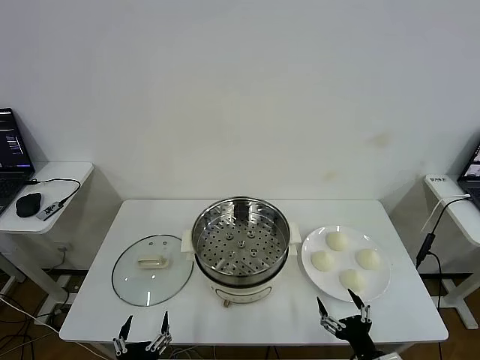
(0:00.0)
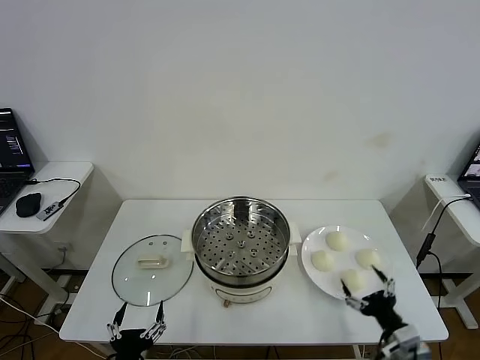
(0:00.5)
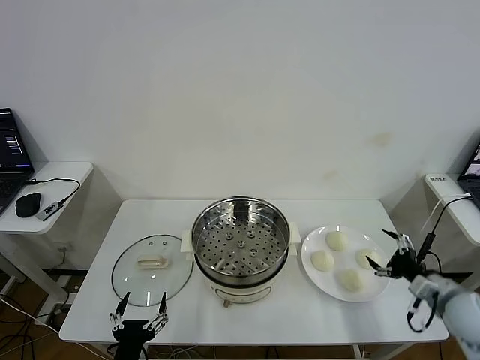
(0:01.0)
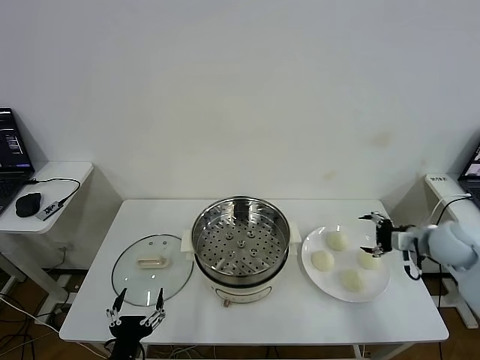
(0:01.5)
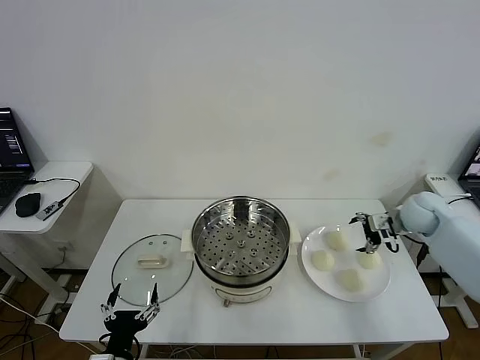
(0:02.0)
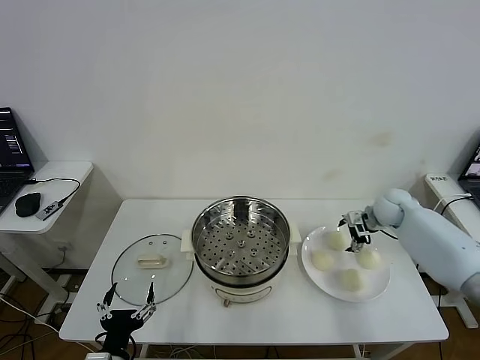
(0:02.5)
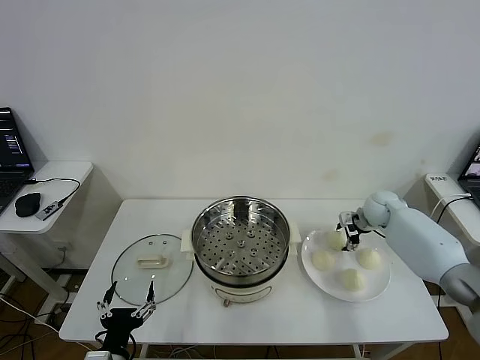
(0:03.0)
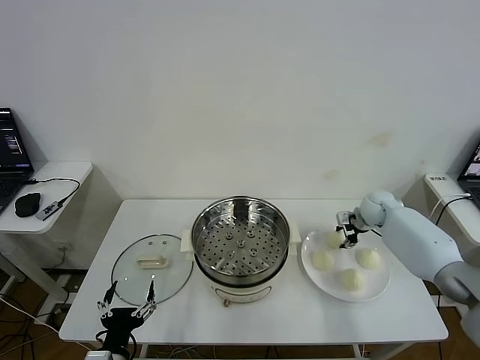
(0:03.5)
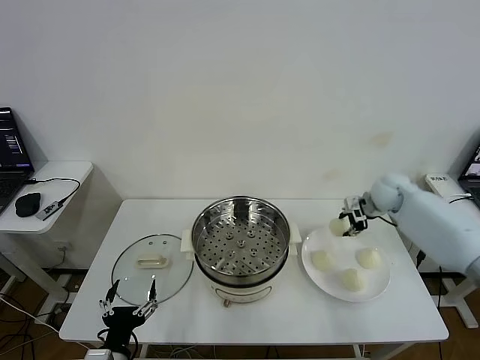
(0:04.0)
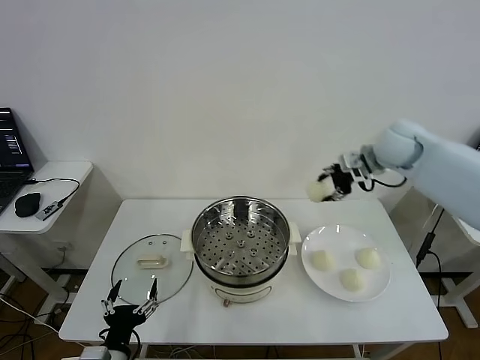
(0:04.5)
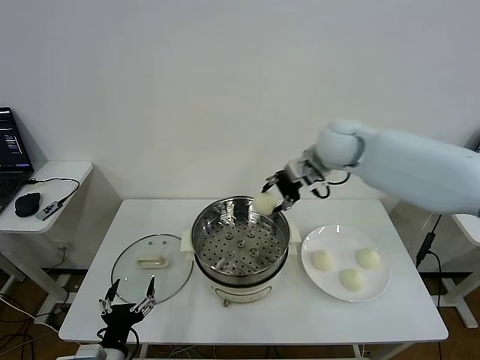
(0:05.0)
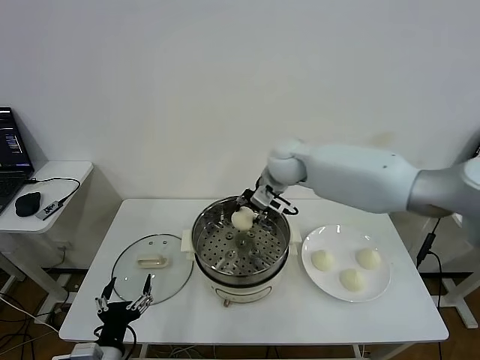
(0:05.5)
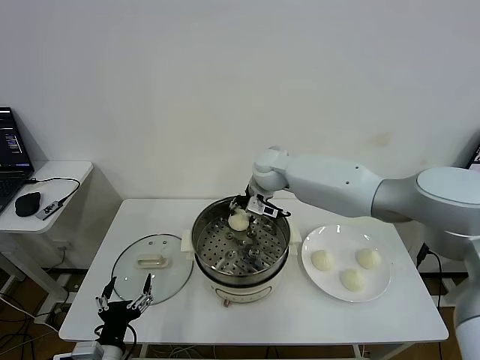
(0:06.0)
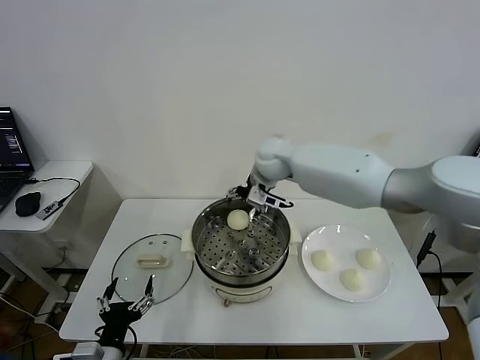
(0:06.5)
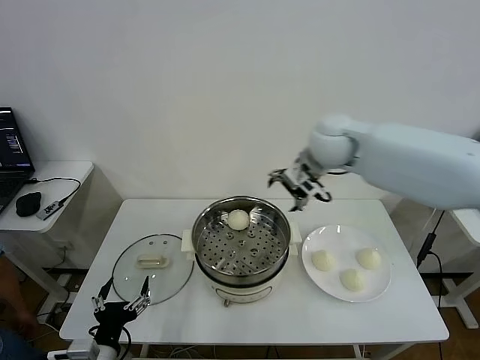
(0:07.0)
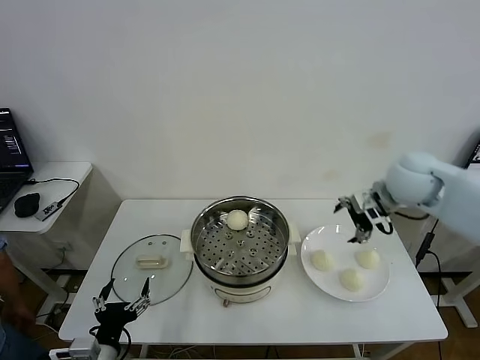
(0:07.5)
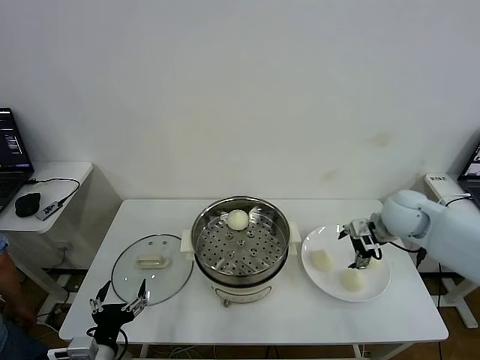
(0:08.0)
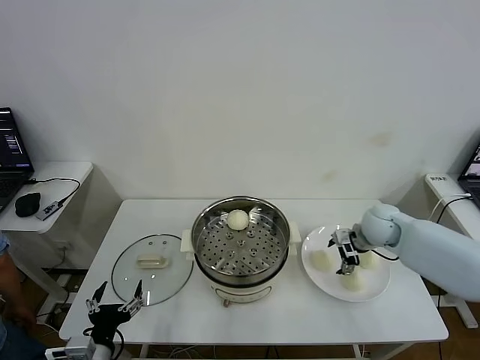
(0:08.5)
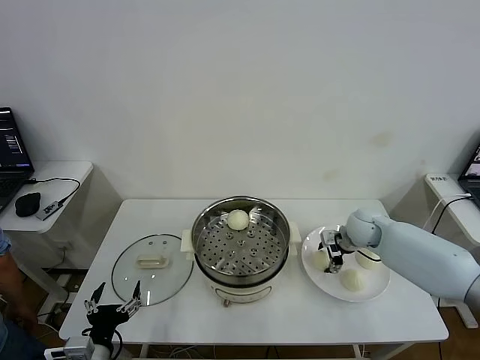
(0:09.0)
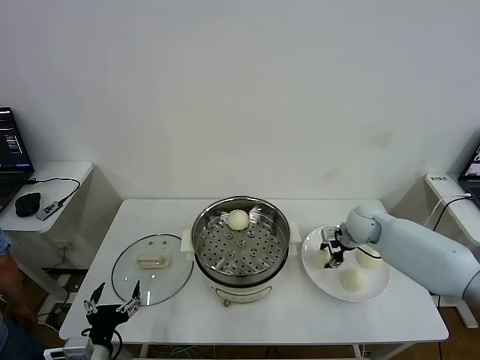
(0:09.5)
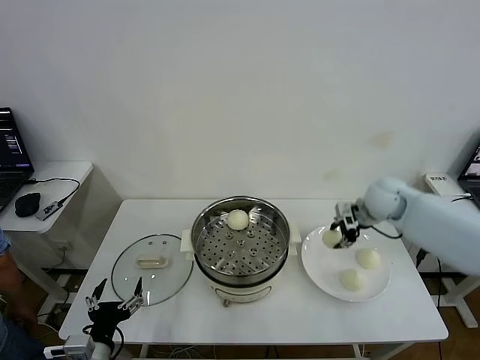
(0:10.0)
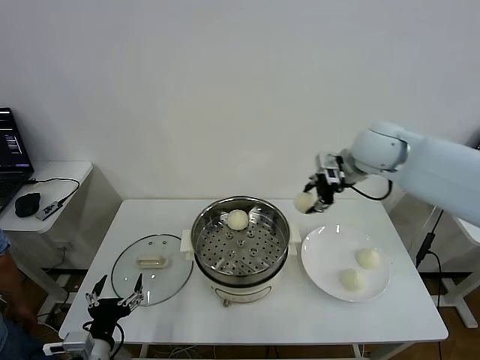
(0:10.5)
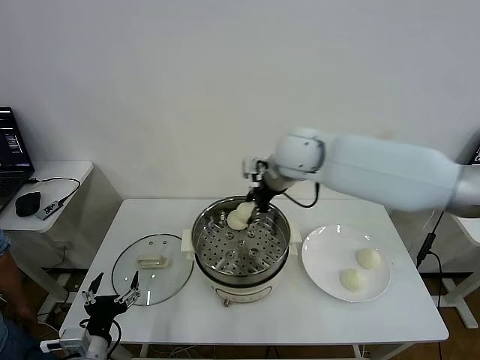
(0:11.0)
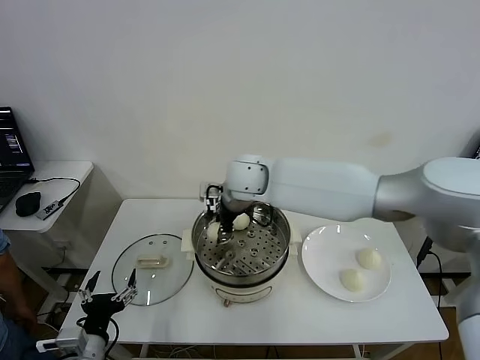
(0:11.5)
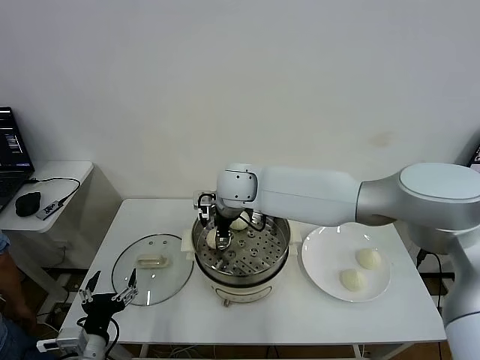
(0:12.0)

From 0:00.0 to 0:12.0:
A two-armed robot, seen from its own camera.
Task of the whole recording: take steamed baozi put them in steamer then cover it.
Step, from 0:00.0 to 0:03.5: Grasp the baozi in the plate with right gripper.
Step, from 0:04.0 to 0:06.0: Place the baozi on the steamer with right gripper.
Step, from 0:06.5 to 0:09.5: Grasp the baozi in the plate with right gripper.
From 0:02.0 to 0:04.0: The right gripper heads forward, covering about 5 cm, reaches about 5 cm downward, then returns, and closes up.
From 0:04.0 to 0:06.0: The right gripper is displaced to the left by about 30 cm.
From 0:06.0 to 0:08.0: The right gripper shifts about 30 cm to the right and backward, and opens up.
From 0:08.0 to 0:10.0: The right gripper shifts approximately 5 cm forward, moves about 10 cm downward and comes back, and closes its fingers.
From 0:10.0 to 0:12.0: The right gripper moves to the left, about 35 cm, and opens its fingers.

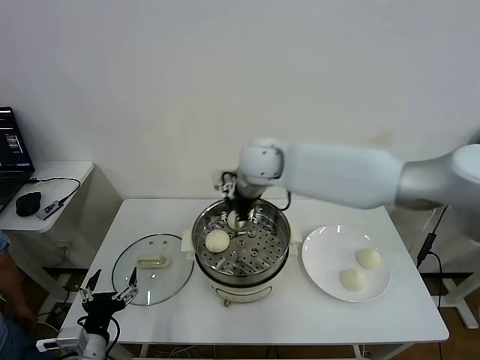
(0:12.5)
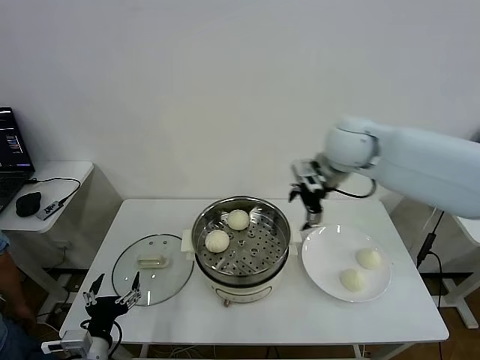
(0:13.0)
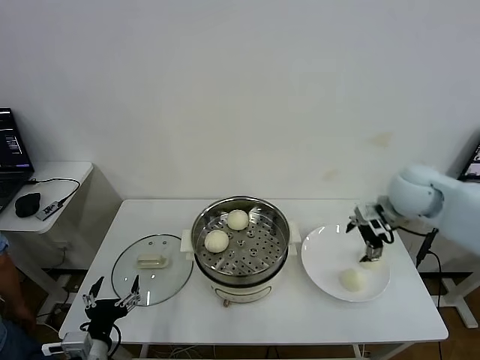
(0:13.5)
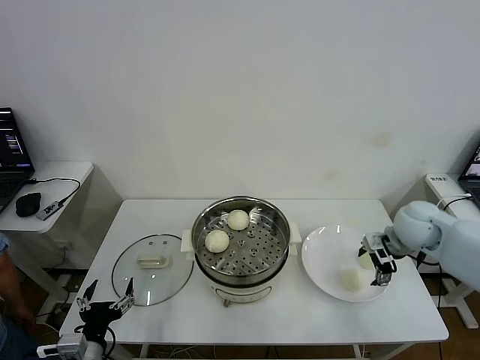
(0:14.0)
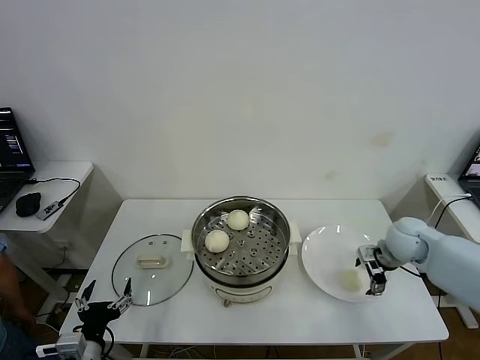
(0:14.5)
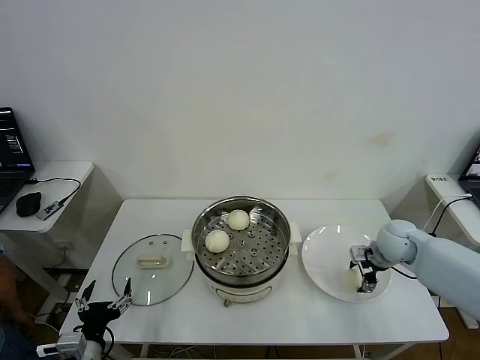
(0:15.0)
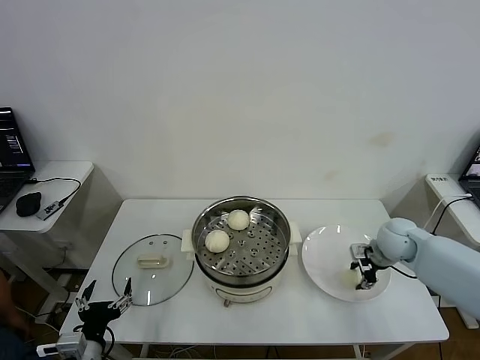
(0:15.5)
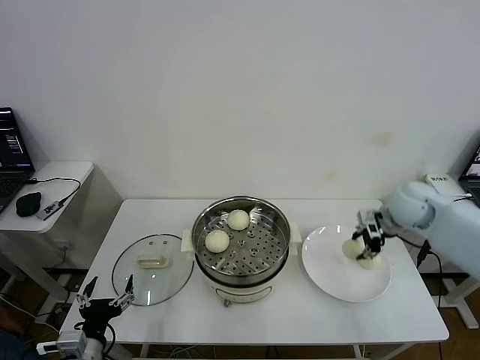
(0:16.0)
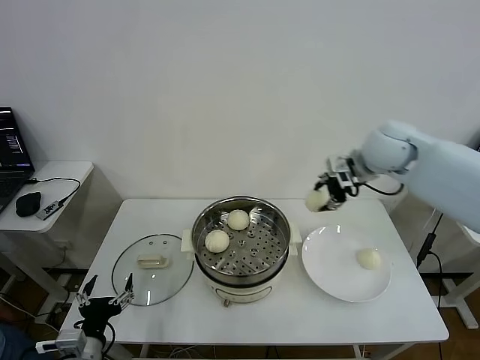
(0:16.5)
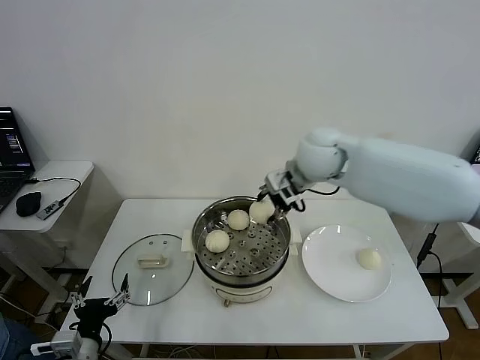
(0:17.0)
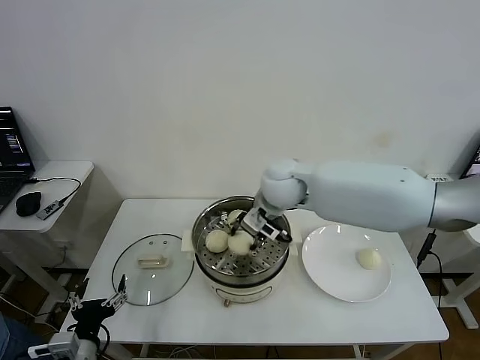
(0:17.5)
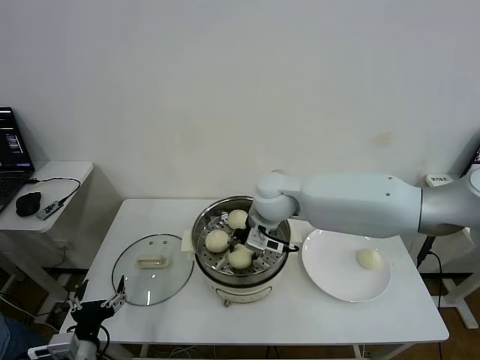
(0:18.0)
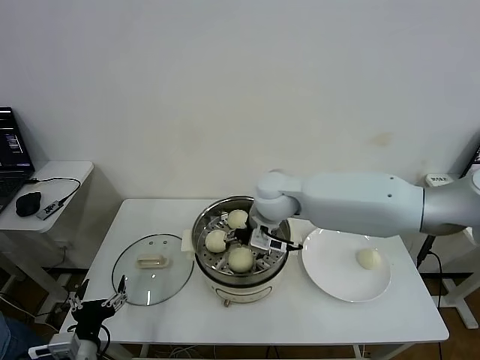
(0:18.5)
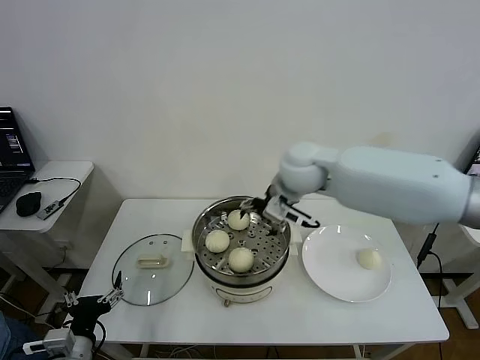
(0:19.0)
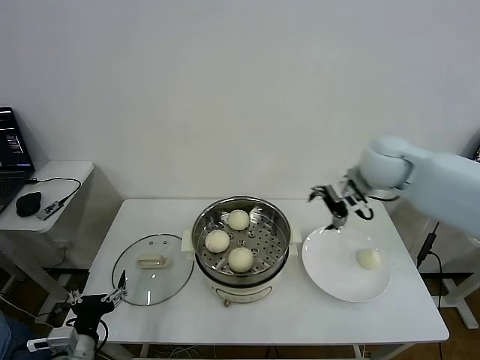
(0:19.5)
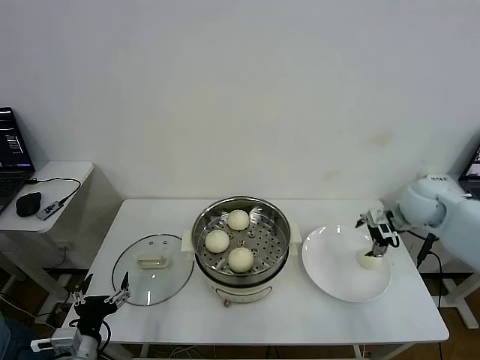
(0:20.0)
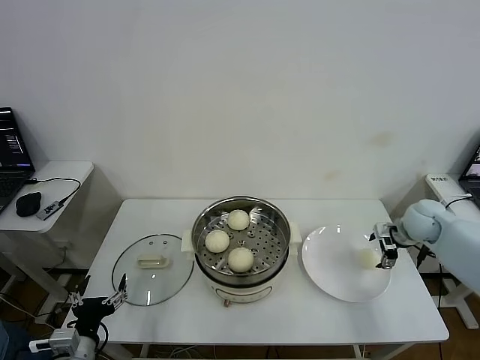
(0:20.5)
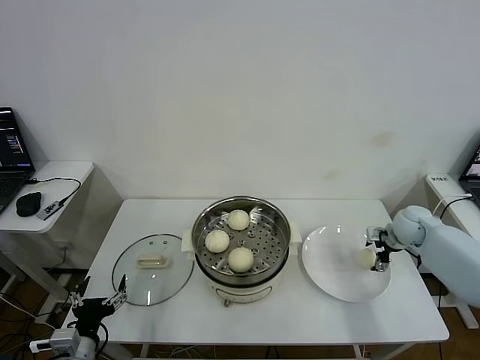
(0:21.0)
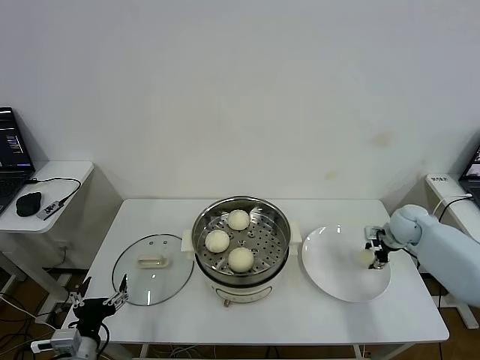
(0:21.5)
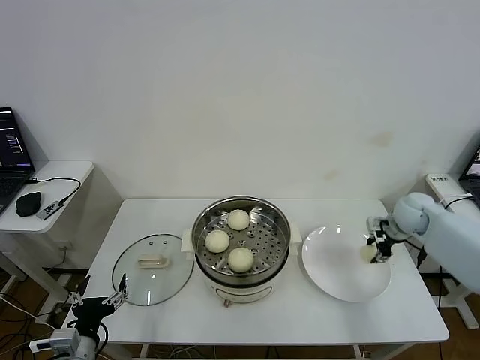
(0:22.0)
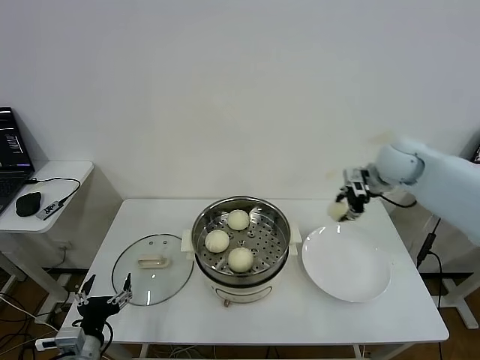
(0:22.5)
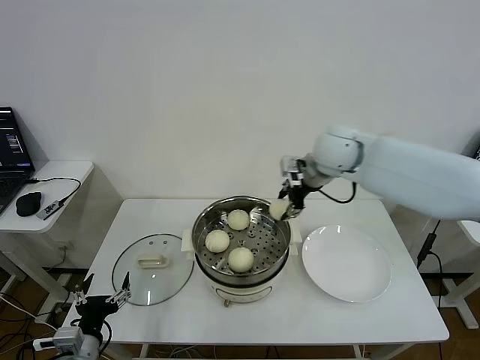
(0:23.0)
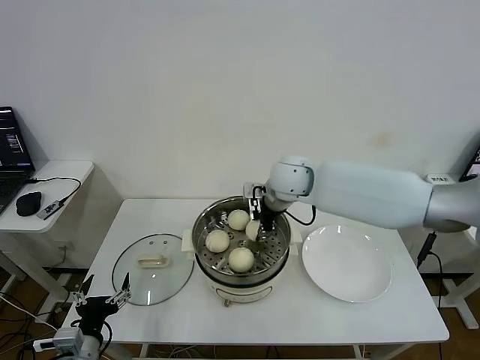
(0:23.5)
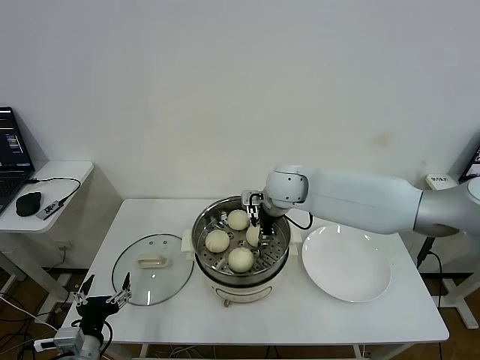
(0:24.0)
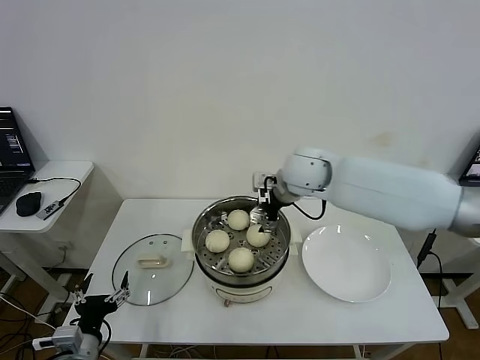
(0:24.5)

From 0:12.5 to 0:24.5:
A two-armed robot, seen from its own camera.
Task of the whole recording: take steamed baozi put them in steamer then cover it.
Step, from 0:12.5 to 0:15.0: Grasp the baozi in the plate with right gripper.
Step, from 0:16.0 to 0:18.5: Place the baozi on the steamer with right gripper.
Step, from 0:19.0 to 0:21.5: Grasp the baozi in the plate with right gripper.
Step, from 0:22.0 to 0:24.0: Place the baozi on the steamer with right gripper.
From 0:12.5 to 0:14.5: The right gripper travels to the right and downward by approximately 40 cm.
From 0:14.5 to 0:16.5: The right gripper heads upward and to the left, covering roughly 25 cm, and closes up.
From 0:16.5 to 0:18.5: The right gripper moves to the left and downward, about 25 cm, and opens its fingers.
From 0:18.5 to 0:20.5: The right gripper goes some 35 cm to the right.
From 0:20.5 to 0:22.5: The right gripper is displaced upward and to the left by roughly 15 cm, and closes its fingers.
From 0:22.5 to 0:24.5: The right gripper travels to the left by roughly 20 cm, and opens its fingers.

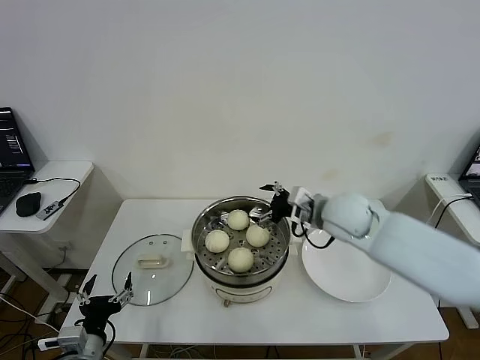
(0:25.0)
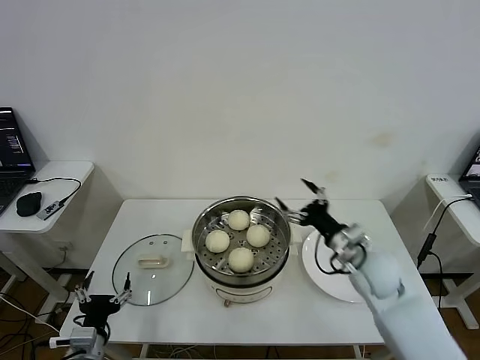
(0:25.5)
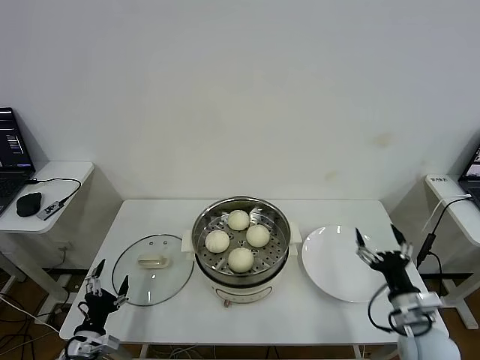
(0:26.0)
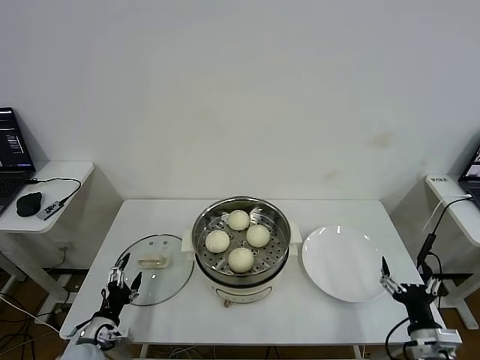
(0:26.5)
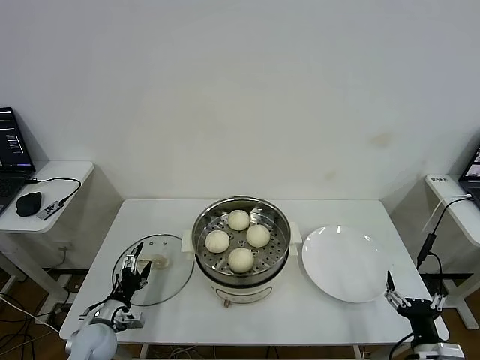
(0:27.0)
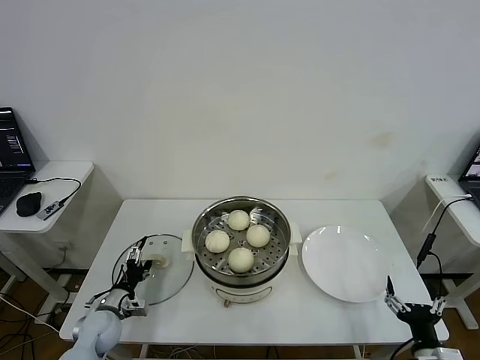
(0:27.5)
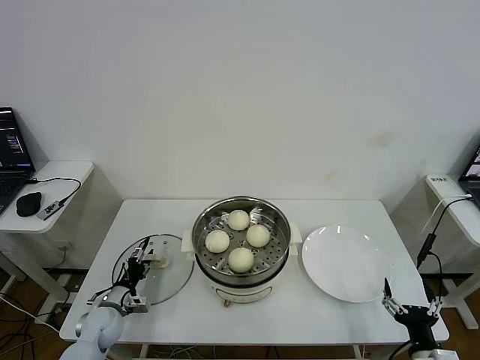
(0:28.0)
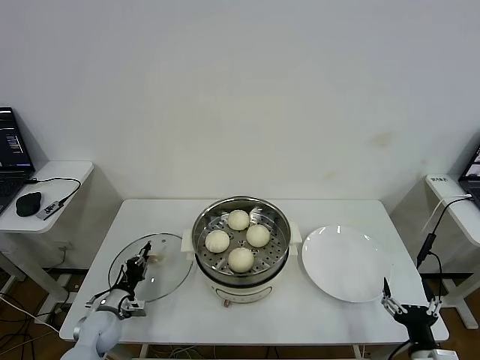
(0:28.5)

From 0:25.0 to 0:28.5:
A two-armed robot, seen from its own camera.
Task of the whole recording: take steamed baozi put them in steamer then cover it.
From 0:25.0 to 0:27.0: The left gripper travels forward and downward by some 15 cm; the right gripper shifts about 40 cm backward, downward and to the right.
From 0:27.0 to 0:28.5: The left gripper closes.
